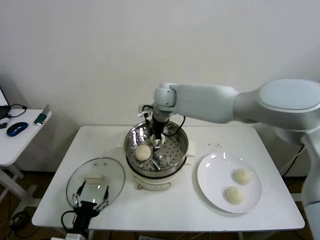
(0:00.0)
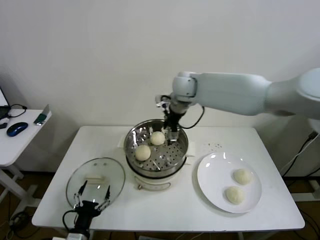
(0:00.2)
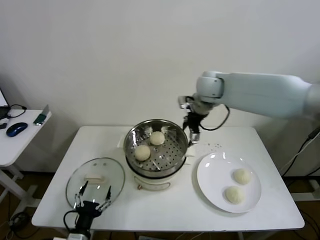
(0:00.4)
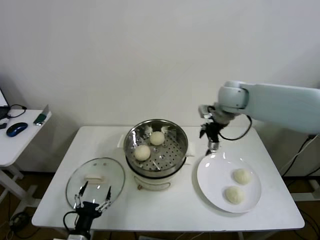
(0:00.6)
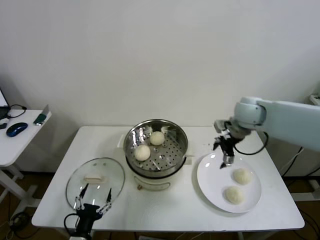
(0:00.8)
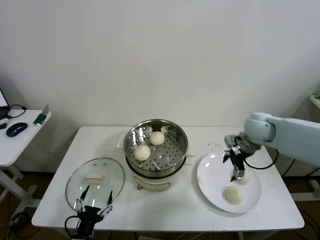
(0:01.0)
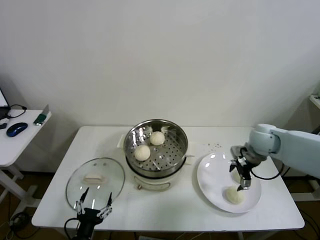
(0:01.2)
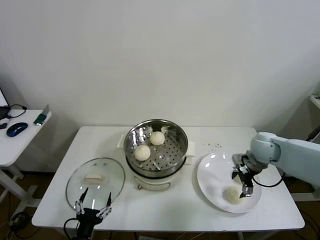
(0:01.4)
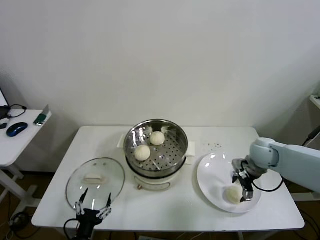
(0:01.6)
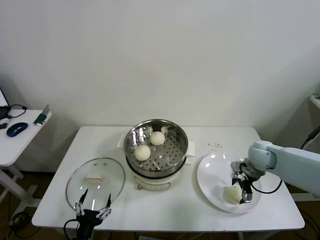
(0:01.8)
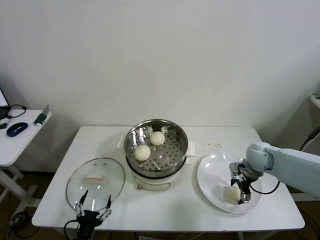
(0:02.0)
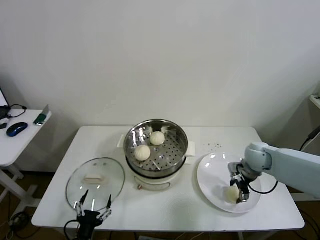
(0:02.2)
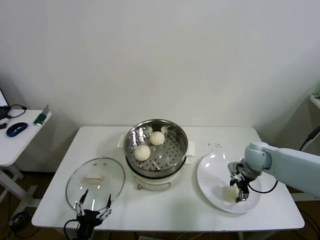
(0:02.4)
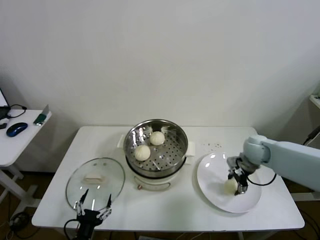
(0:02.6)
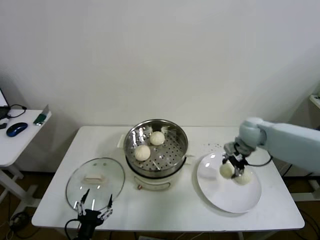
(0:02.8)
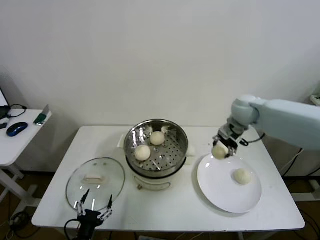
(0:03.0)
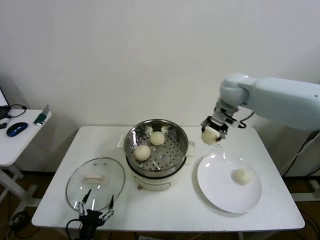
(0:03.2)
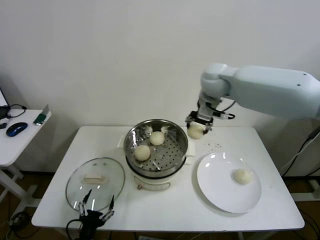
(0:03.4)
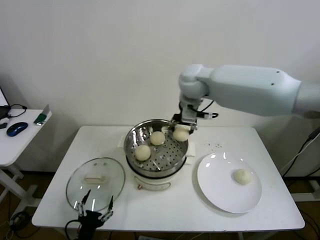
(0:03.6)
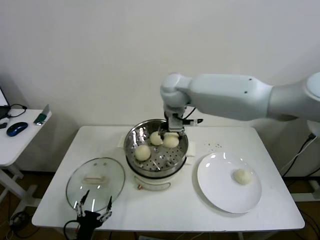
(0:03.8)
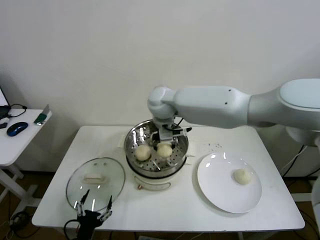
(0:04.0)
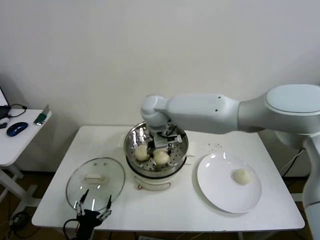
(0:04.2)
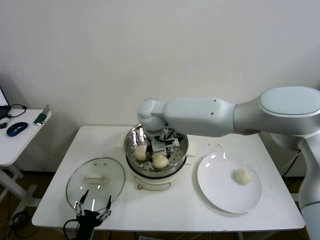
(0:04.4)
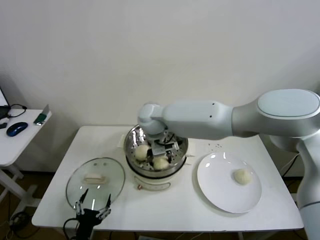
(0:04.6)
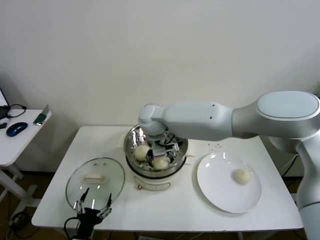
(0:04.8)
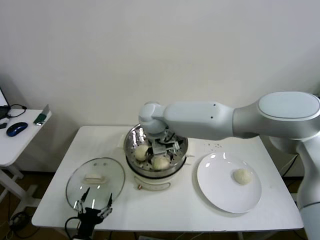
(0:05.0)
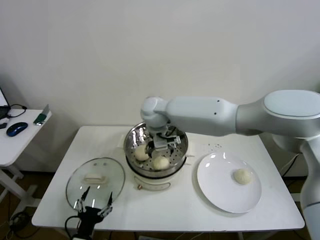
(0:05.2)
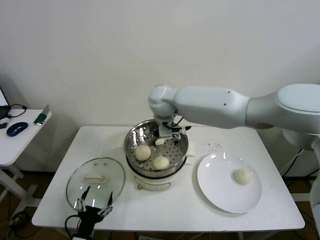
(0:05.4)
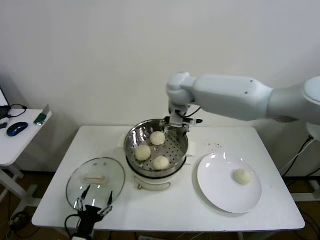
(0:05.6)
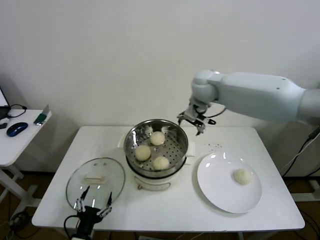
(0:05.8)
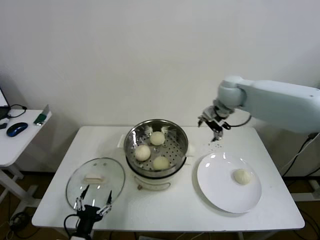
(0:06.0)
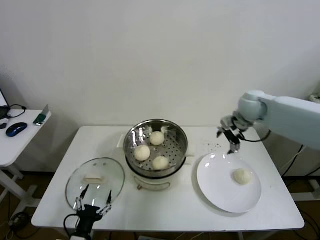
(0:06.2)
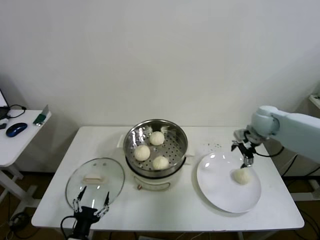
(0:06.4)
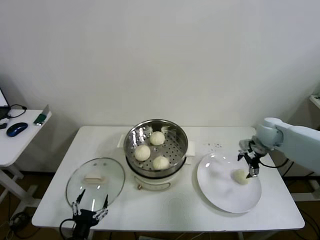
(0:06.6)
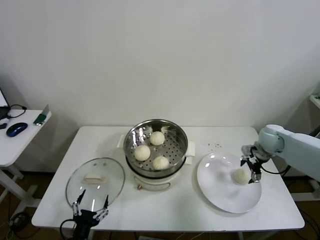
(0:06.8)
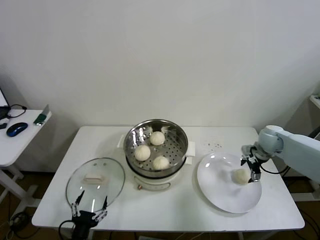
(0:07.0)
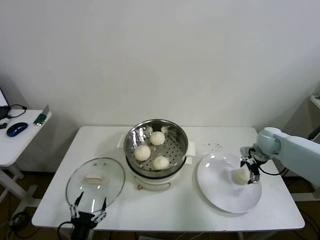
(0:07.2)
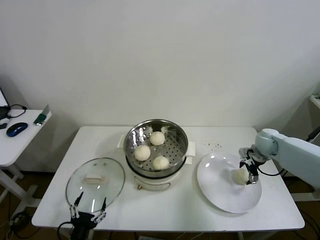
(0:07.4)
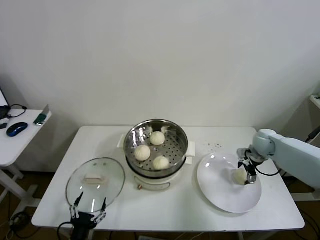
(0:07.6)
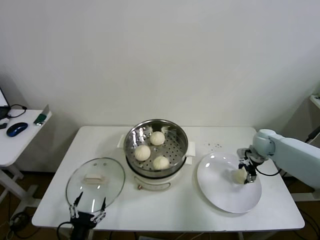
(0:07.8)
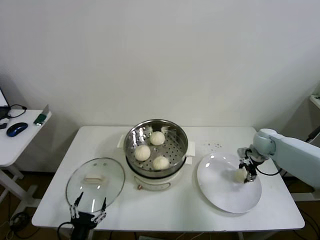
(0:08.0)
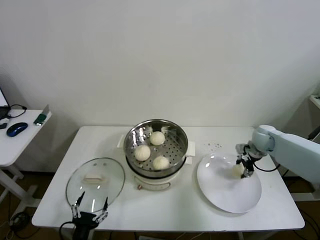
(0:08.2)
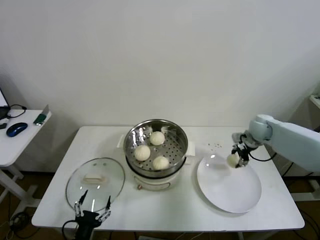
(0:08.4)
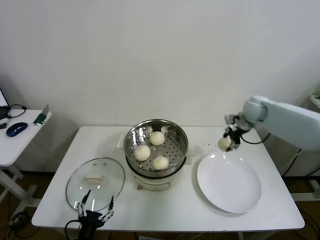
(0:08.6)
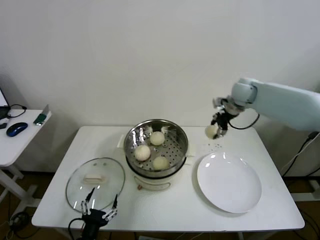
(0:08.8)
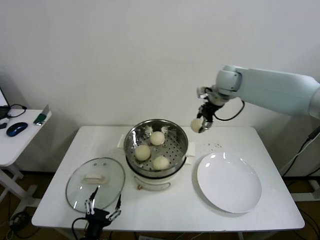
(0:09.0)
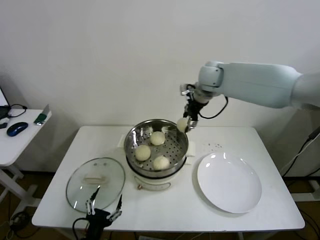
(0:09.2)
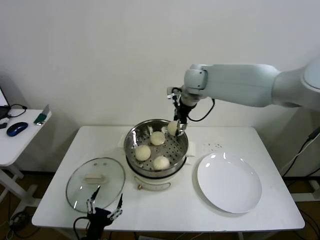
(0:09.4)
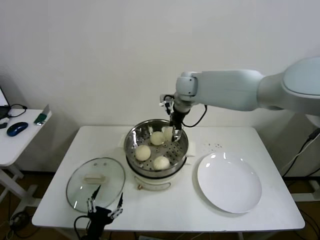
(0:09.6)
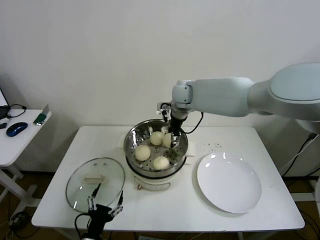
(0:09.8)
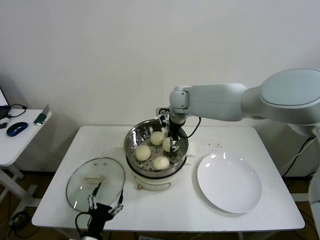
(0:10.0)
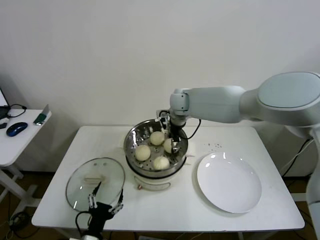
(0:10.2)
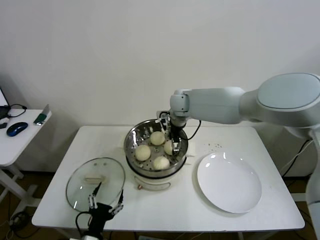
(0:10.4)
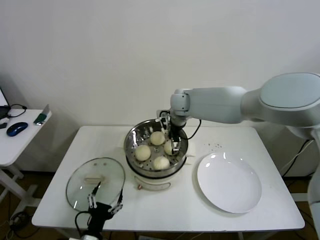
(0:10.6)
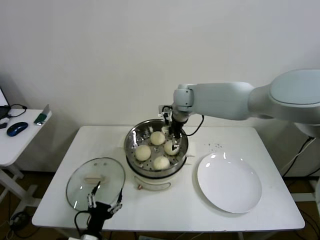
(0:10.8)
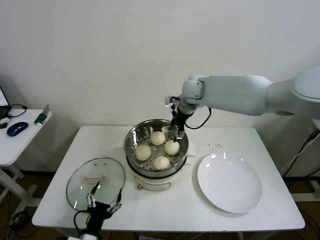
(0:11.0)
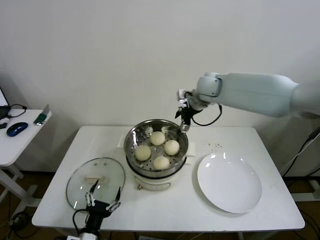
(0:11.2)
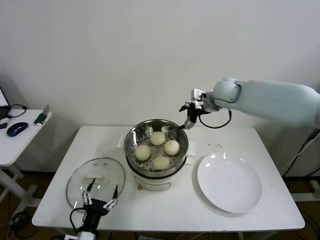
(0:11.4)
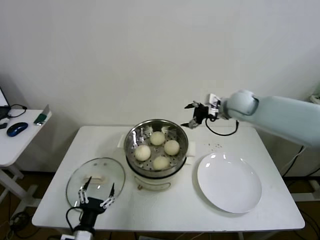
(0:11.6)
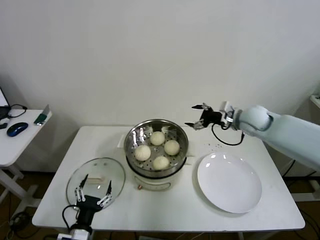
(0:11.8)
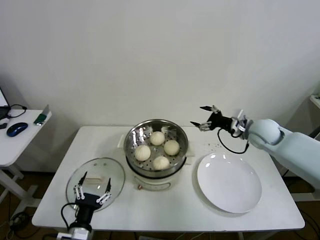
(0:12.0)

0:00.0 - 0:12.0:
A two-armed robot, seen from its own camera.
Step, 0:00.0 - 0:02.2: Grasp the baozi in the plate with right gripper.
Step, 0:02.4 - 0:04.6: Place the baozi on the steamer with right gripper.
Step, 0:05.0 - 0:07.6: Grasp the baozi in the plate with right gripper.
Step, 0:08.0 - 0:10.4: Place the baozi on the steamer with right gripper.
0:00.0 - 0:01.6: The right gripper is displaced to the right, downward and backward by roughly 40 cm.
0:01.6 - 0:03.0: The right gripper travels upward, forward and to the left by some 20 cm, and closes.
0:03.0 - 0:04.4: The right gripper heads to the left, covering approximately 30 cm.
0:04.4 - 0:06.0: The right gripper shifts approximately 25 cm to the right, and opens up.
0:06.0 - 0:07.6: The right gripper travels downward and to the right by roughly 25 cm.
0:07.6 - 0:09.0: The right gripper is displaced upward and to the left by about 30 cm, and closes.
0:09.0 - 0:10.4: The right gripper shifts approximately 15 cm to the left and downward, and opens up.
0:10.4 - 0:12.0: The right gripper is displaced to the right and backward by about 30 cm.

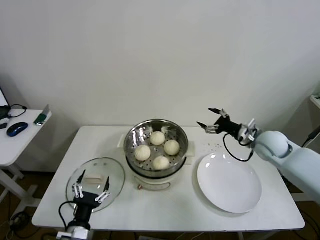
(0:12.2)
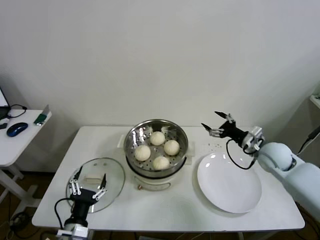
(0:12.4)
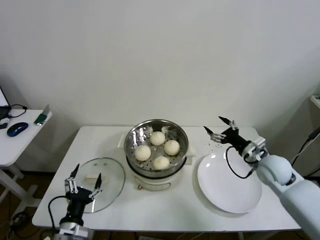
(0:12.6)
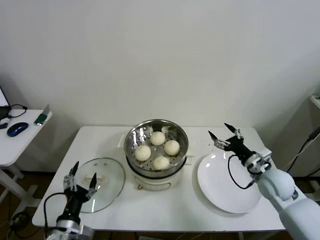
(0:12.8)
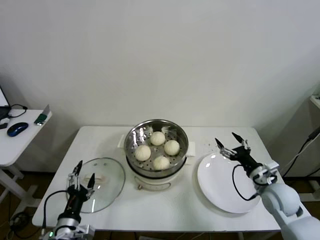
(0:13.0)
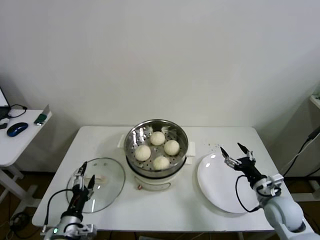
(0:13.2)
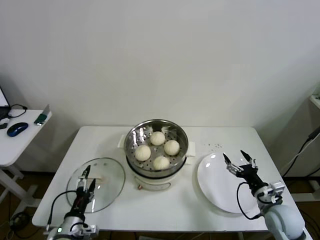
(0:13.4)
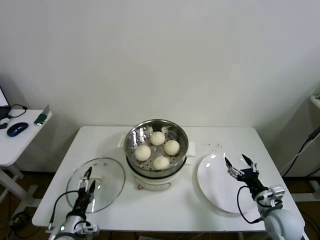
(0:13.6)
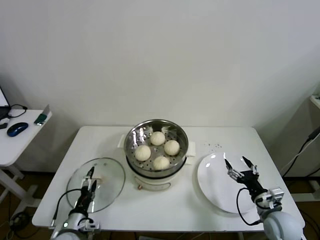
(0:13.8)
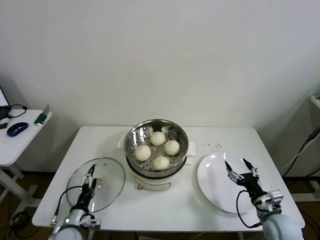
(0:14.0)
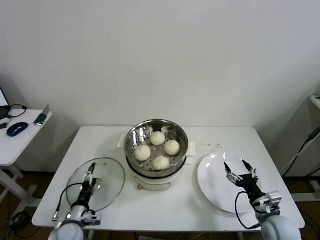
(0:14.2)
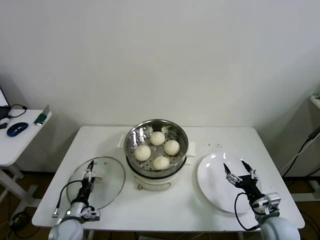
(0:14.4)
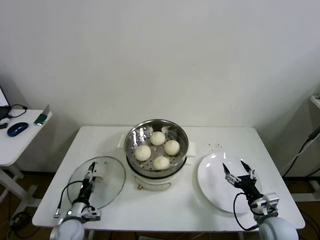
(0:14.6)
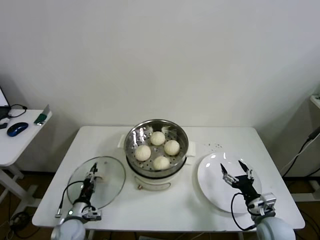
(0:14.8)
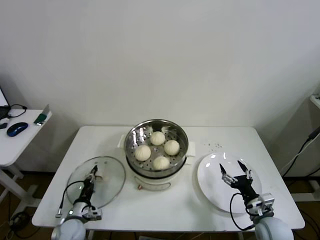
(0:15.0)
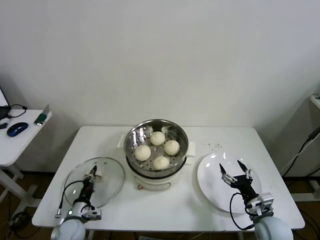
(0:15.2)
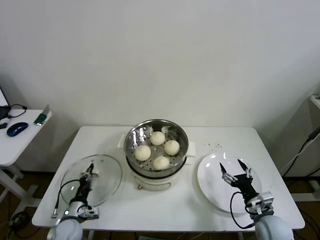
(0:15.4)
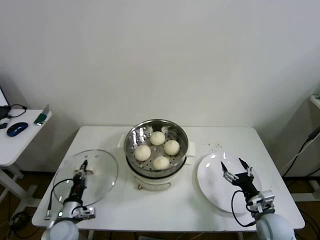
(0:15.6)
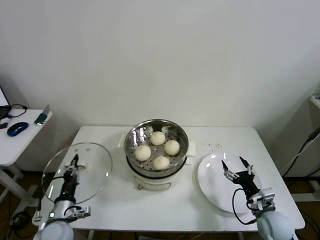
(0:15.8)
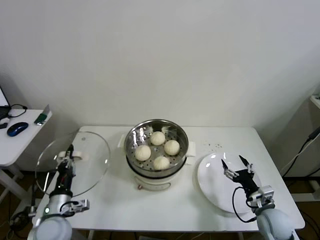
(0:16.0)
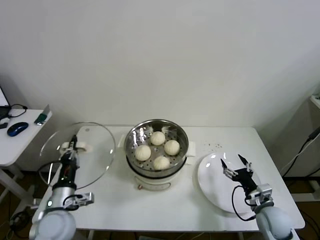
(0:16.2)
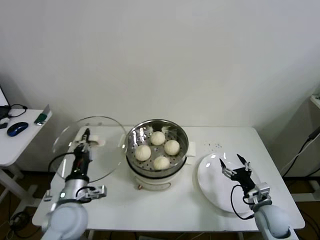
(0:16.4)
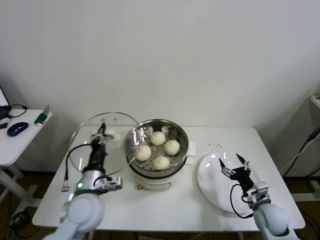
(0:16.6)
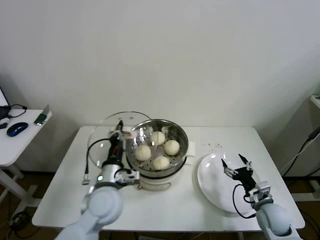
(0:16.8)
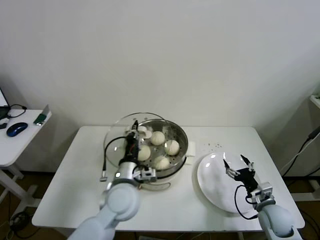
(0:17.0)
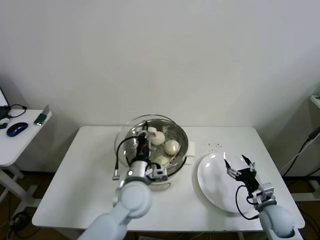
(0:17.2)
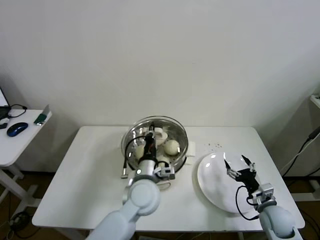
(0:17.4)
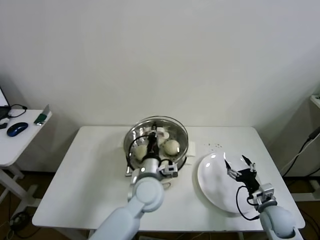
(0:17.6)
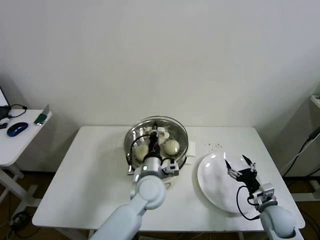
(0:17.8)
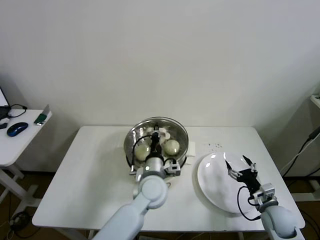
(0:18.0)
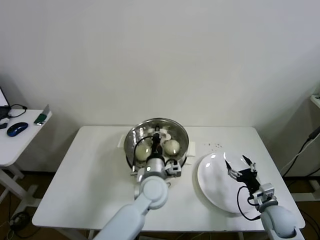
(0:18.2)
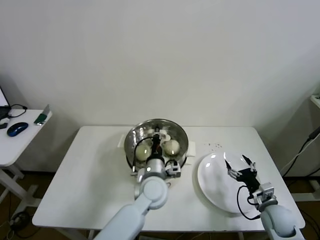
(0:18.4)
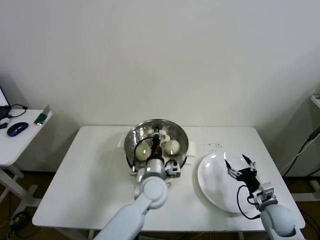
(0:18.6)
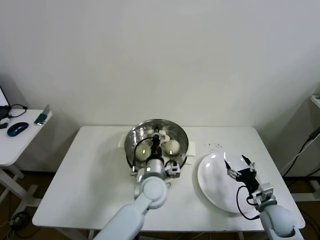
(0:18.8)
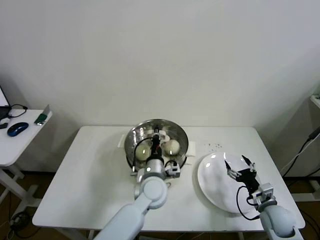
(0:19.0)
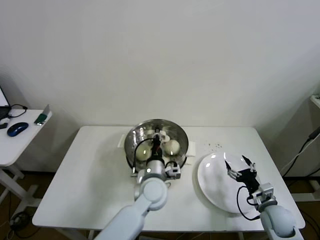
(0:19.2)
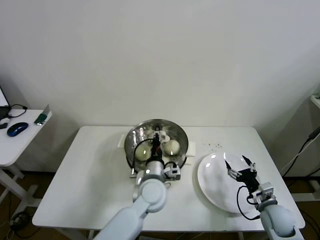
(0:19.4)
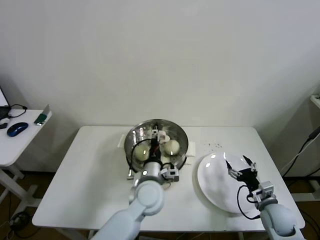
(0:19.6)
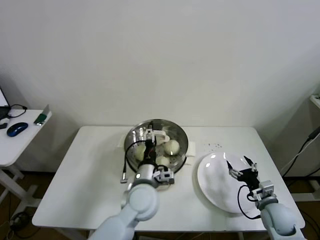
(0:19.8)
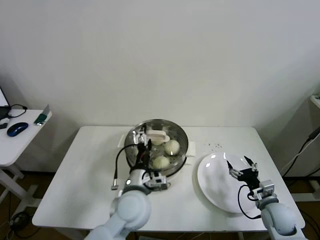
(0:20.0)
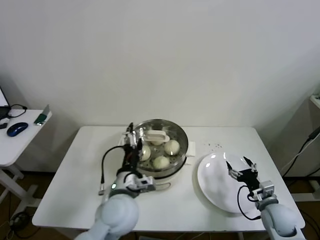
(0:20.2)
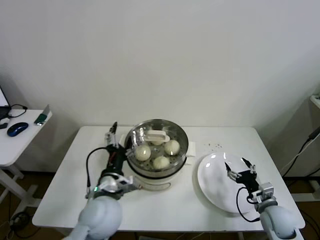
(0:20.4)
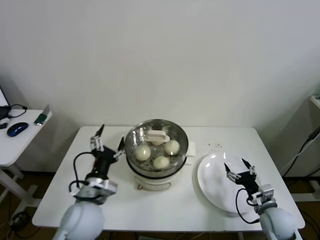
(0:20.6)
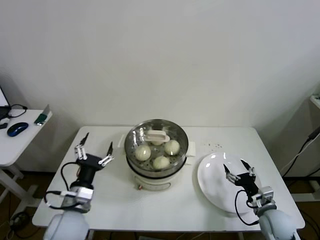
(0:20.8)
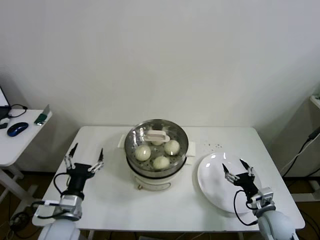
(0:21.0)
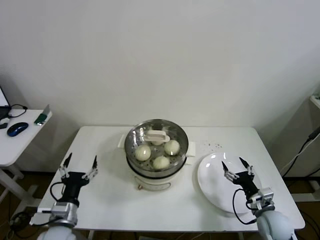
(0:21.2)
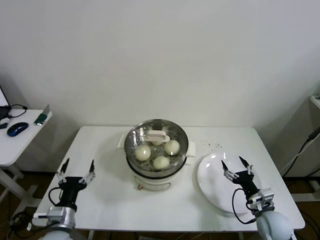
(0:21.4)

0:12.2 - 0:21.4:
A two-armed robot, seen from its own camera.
Step, 0:12.2 - 0:15.0: Grasp the pot lid with left gripper.
Step, 0:15.2 - 0:19.0: Place the pot lid on the steamer with left gripper.
0:12.2 - 0:13.8: The left gripper heads downward, forward and to the left, covering some 10 cm. The right gripper heads backward and downward, covering approximately 25 cm.
0:13.8 - 0:15.2: The left gripper goes approximately 5 cm forward, and closes.
0:15.2 - 0:16.8: The left gripper heads upward and to the right, covering about 25 cm.
0:16.8 - 0:18.4: The left gripper shifts about 15 cm to the right and forward.
0:18.4 - 0:19.8: The left gripper opens.
0:19.8 - 0:21.4: The left gripper moves to the left and backward, about 25 cm.

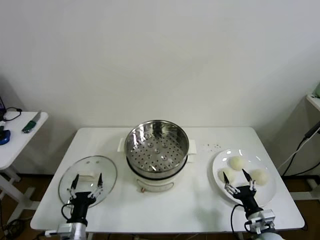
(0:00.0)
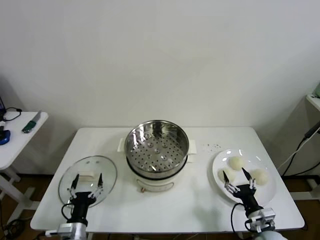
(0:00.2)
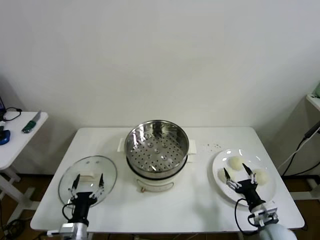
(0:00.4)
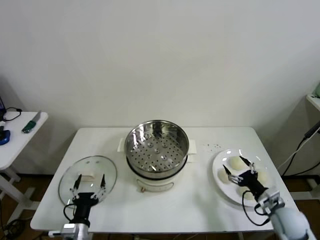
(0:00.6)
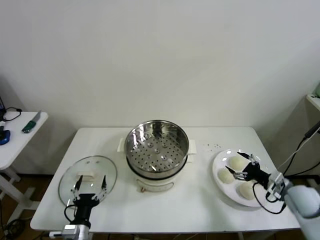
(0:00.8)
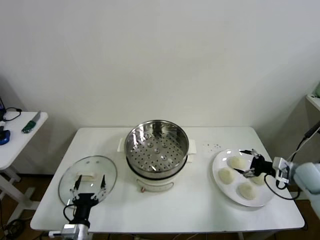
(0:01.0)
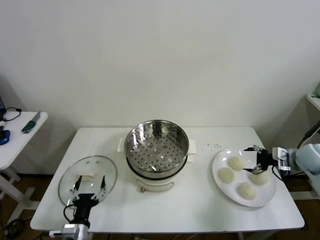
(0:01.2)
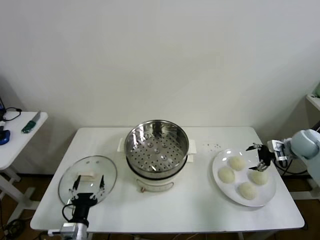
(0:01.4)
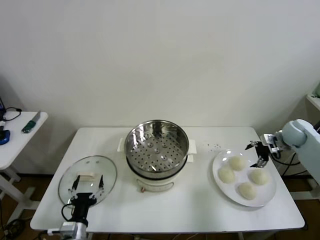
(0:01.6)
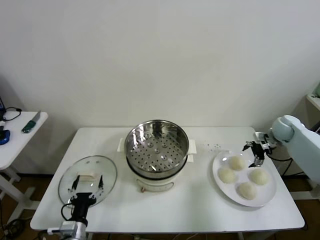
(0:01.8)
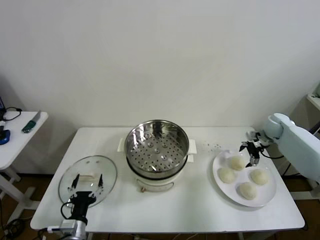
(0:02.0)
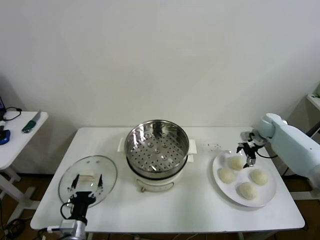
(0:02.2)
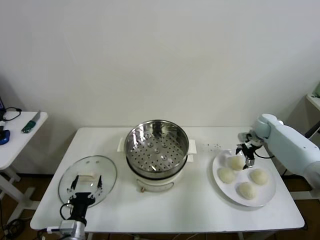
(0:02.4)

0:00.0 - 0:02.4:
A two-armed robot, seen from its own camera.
0:01.2 - 0:02.4: The right gripper moves forward and to the left, some 15 cm.
